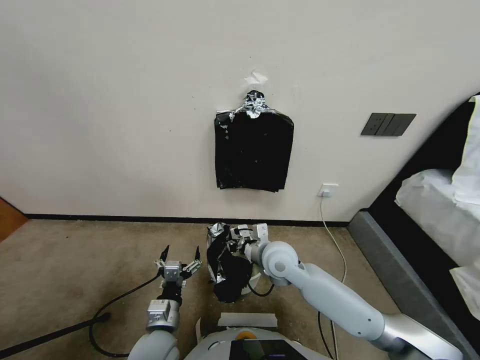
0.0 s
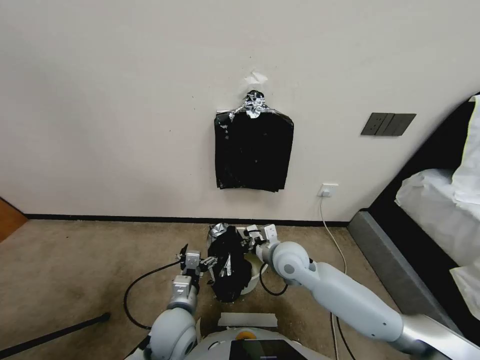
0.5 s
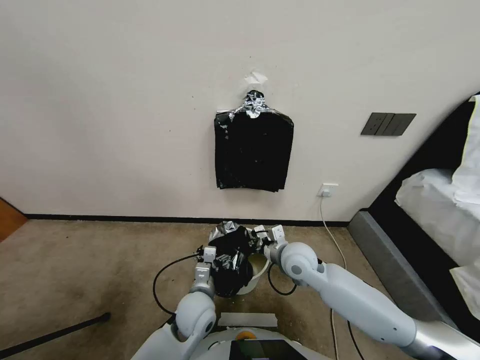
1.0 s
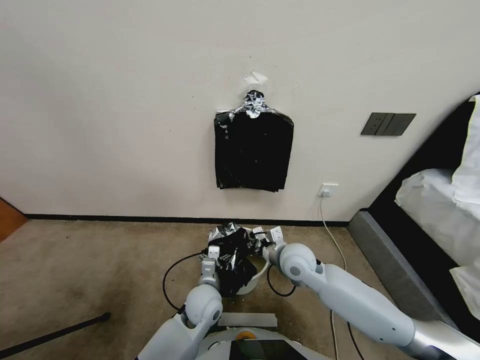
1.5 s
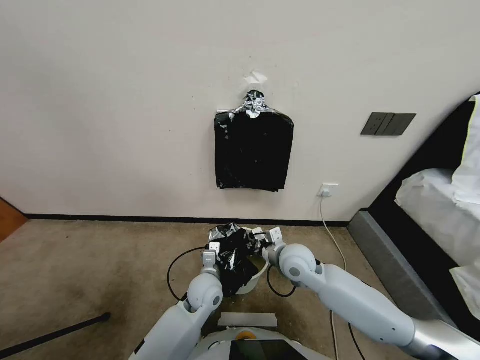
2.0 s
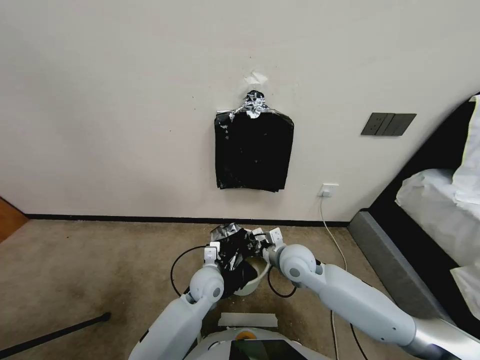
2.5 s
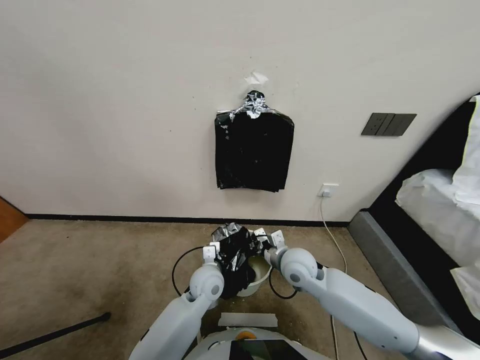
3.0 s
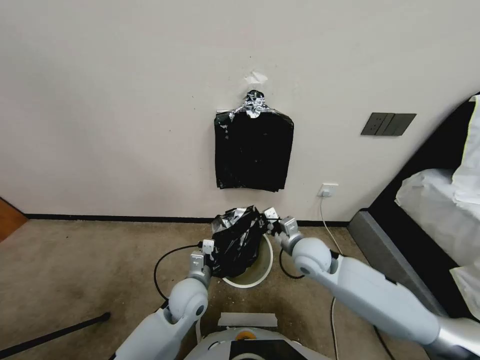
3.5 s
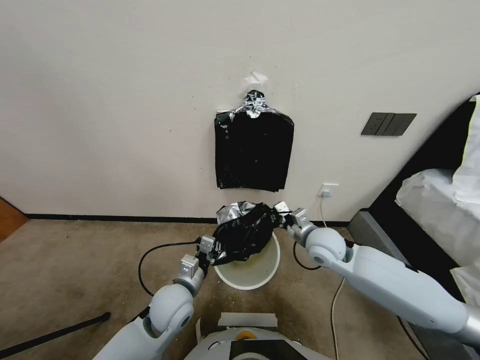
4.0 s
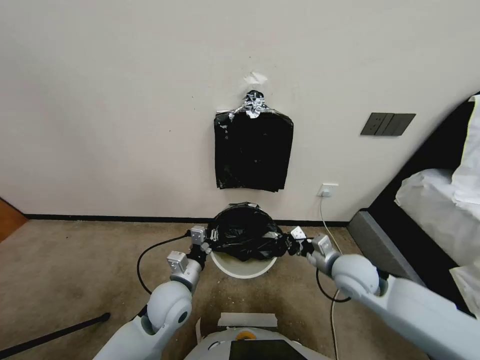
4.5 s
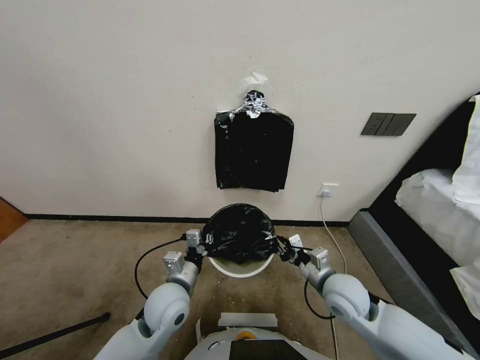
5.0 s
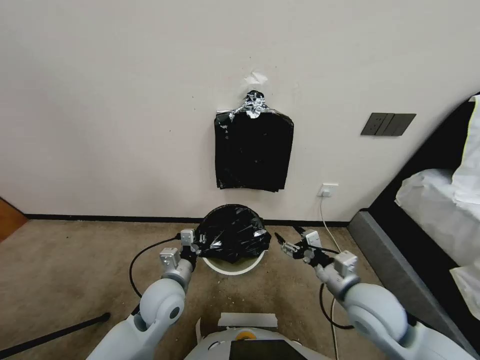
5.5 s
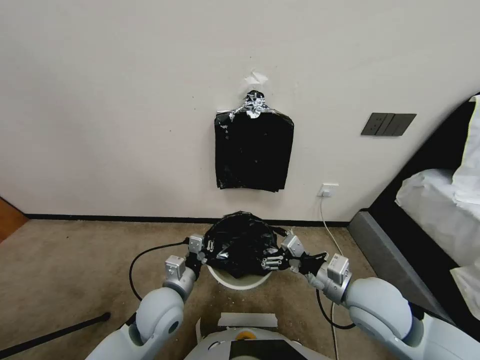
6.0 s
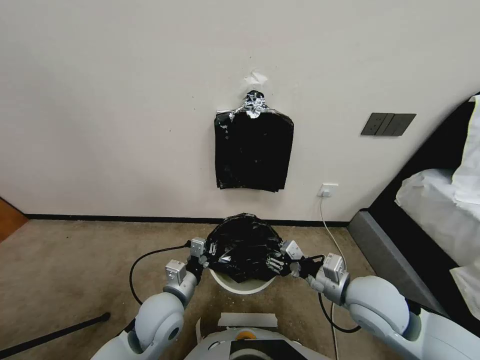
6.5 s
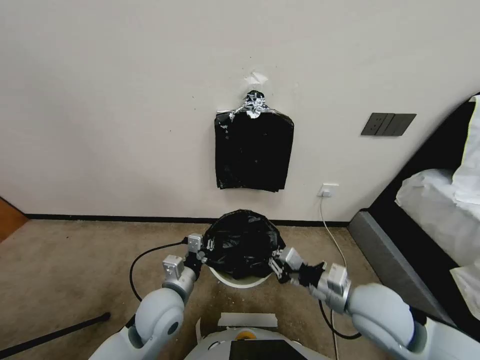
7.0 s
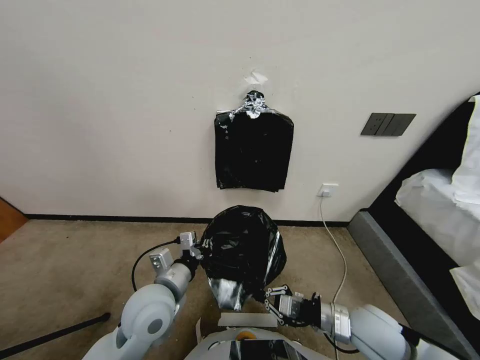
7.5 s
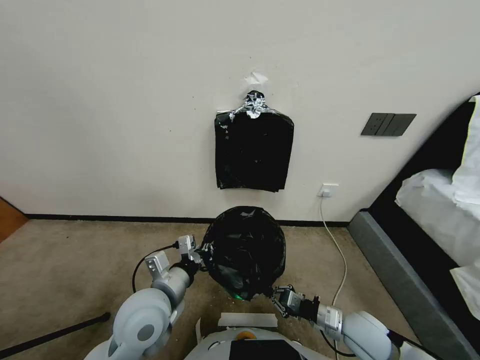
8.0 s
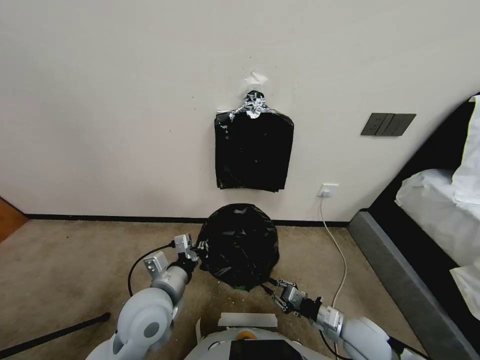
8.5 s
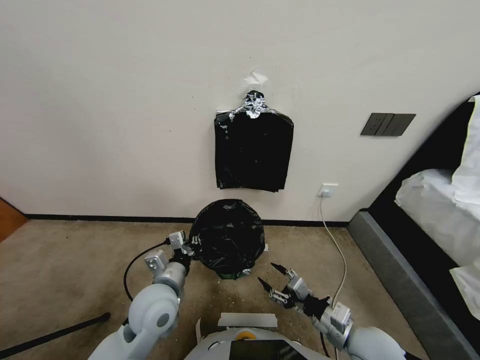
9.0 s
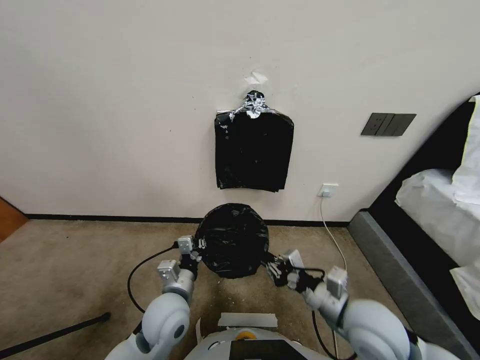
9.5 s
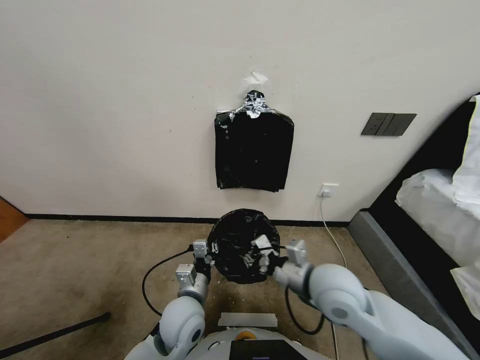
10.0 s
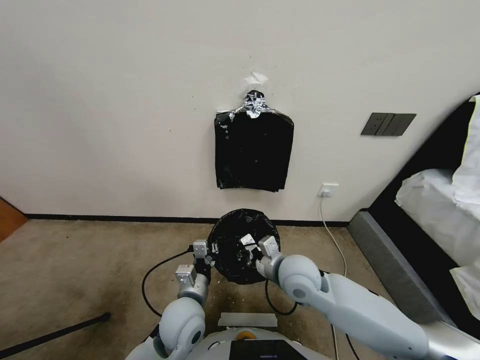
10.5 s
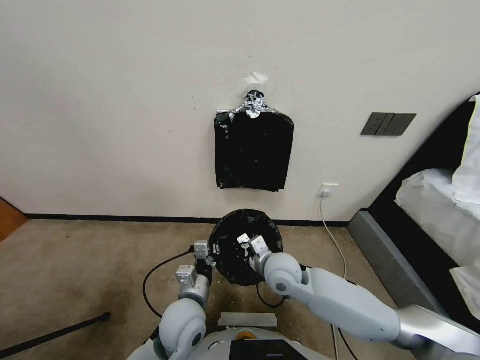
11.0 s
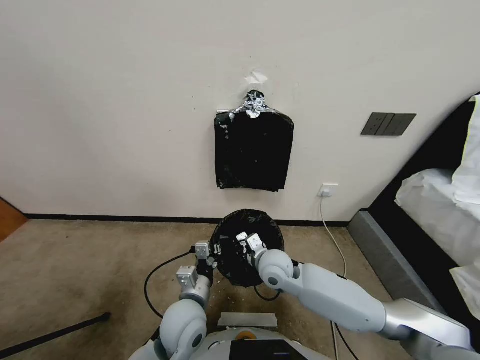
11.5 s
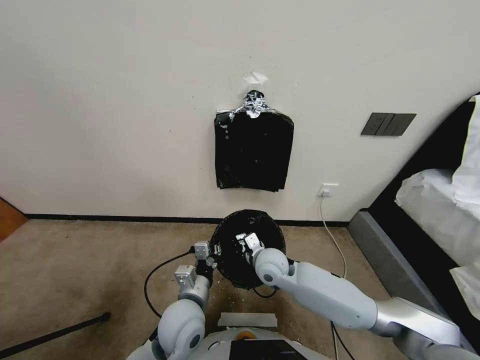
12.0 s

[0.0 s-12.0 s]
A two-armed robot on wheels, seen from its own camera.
Task of the whole recording: Place a trash bag onto the trash bin.
0.0 to 2.0 s: The left gripper moves forward and to the right, roughly 15 cm.
2.0 to 4.0 s: The right gripper heads to the right, covering about 10 cm, while the left gripper travels to the left, upward and backward by about 10 cm, and closes its fingers.
4.0 to 6.0 s: The right gripper goes some 15 cm backward, and opens its fingers.
6.0 to 8.0 s: The left gripper is displaced upward by about 5 cm. The right gripper is displaced downward by about 15 cm, and closes its fingers.
8.0 to 10.0 s: The right gripper moves upward, to the left and forward, about 25 cm, and opens, then closes once more, while the left gripper heads downward and to the right, covering approximately 10 cm.
10.0 to 12.0 s: The right gripper shifts about 15 cm downward, forward and to the left.

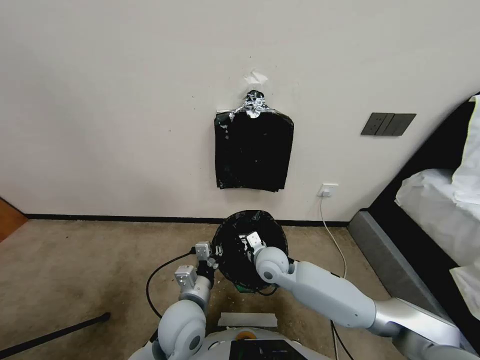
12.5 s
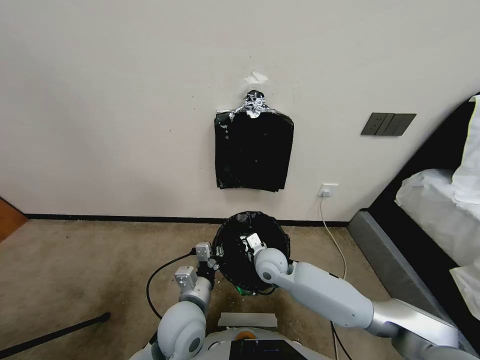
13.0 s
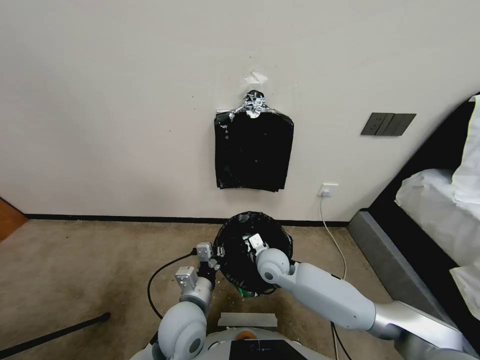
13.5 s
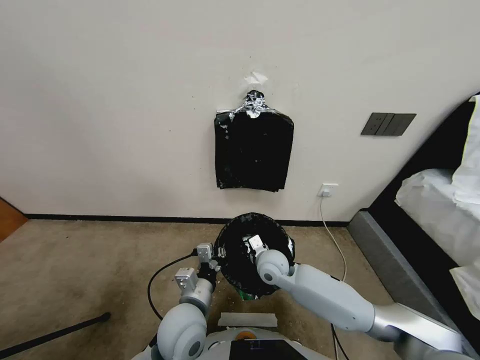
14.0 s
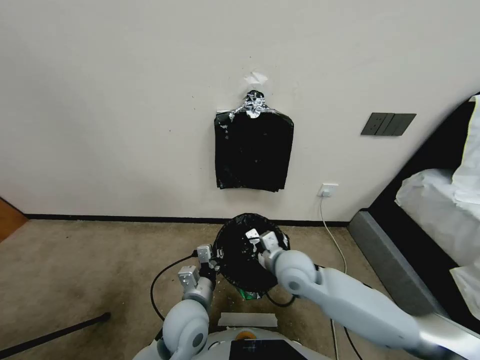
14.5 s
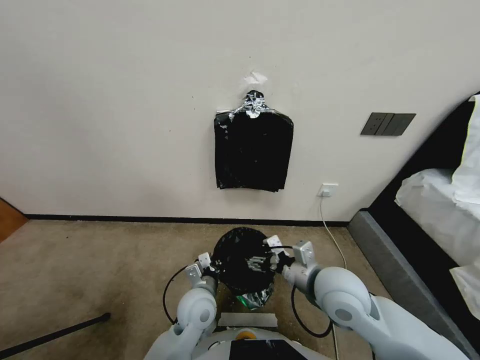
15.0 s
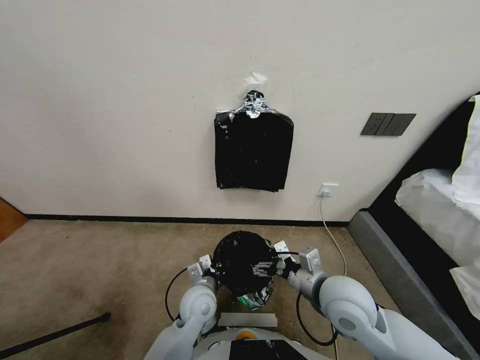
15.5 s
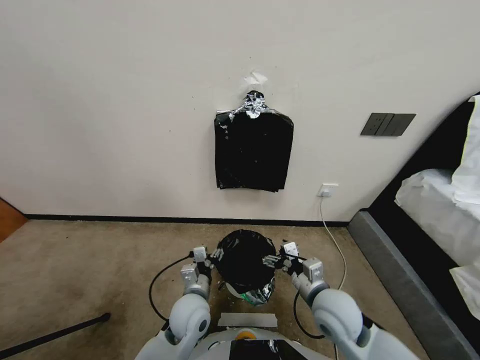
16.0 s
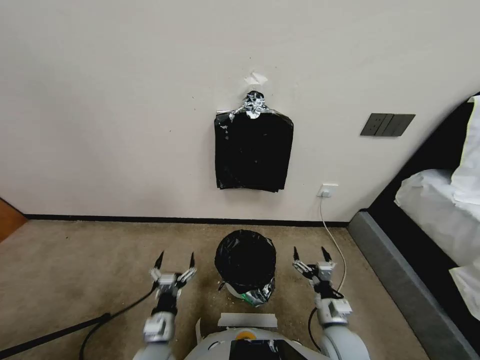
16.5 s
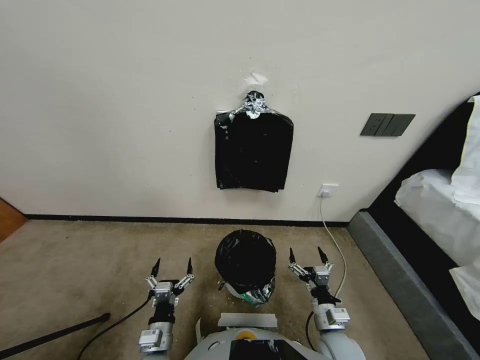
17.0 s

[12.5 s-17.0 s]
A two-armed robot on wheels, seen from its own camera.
Task of the whole recording: Place a trash bag onto the trash bin.
12.5 to 14.5 s: The right gripper goes approximately 10 cm upward, backward and to the right, and opens.
14.5 to 17.0 s: The right gripper travels downward, backward and to the right by some 25 cm, and opens; the left gripper moves downward, backward and to the left, roughly 15 cm, and opens its fingers.
